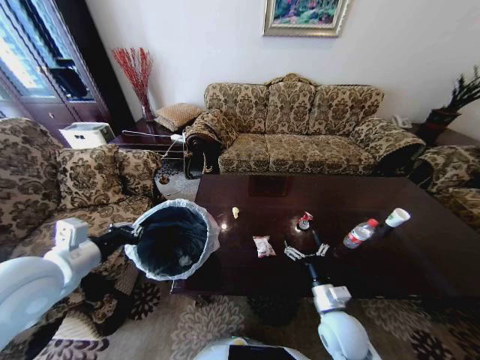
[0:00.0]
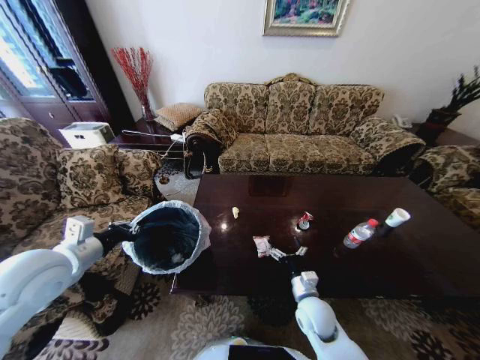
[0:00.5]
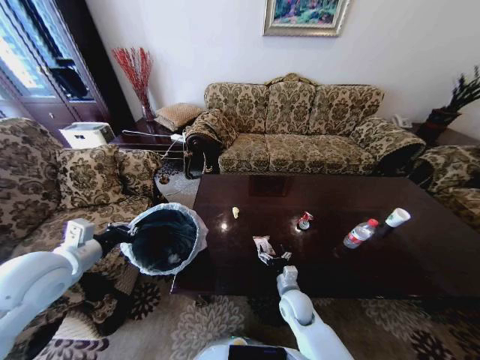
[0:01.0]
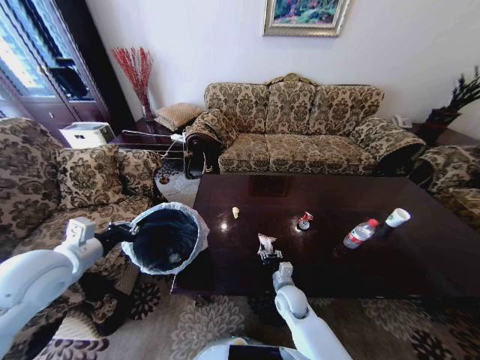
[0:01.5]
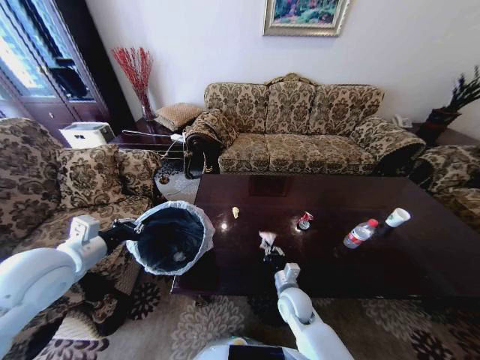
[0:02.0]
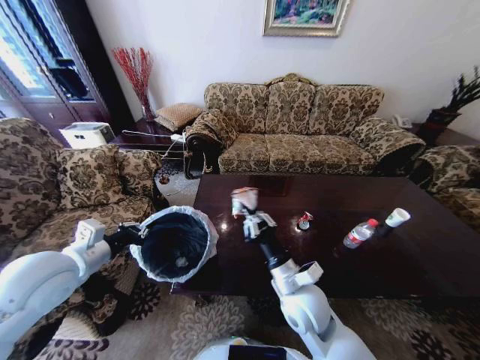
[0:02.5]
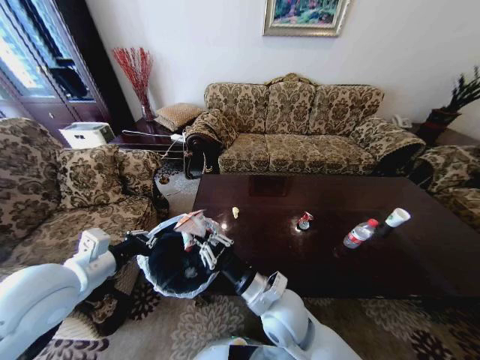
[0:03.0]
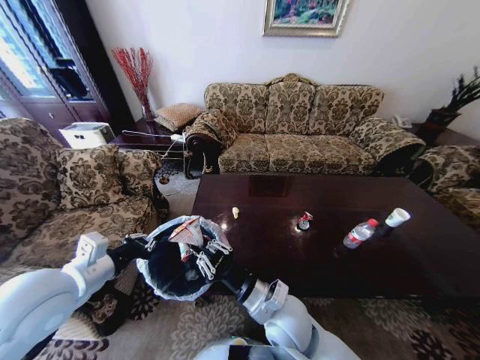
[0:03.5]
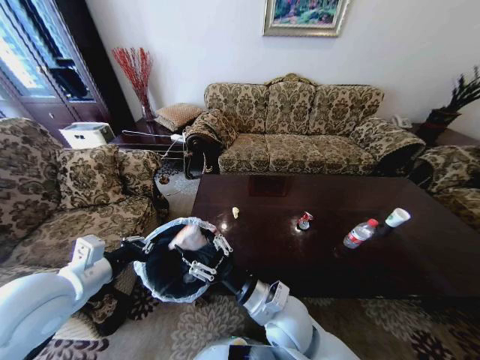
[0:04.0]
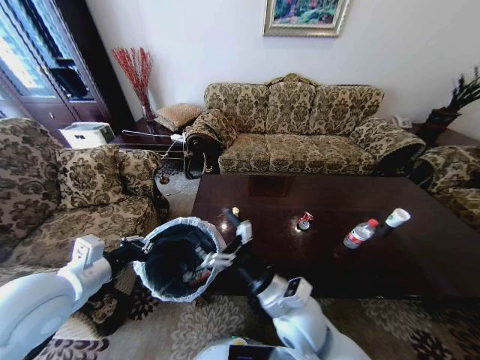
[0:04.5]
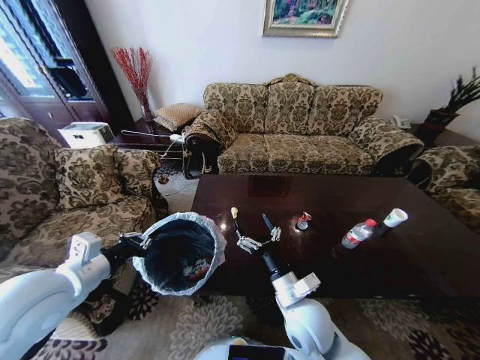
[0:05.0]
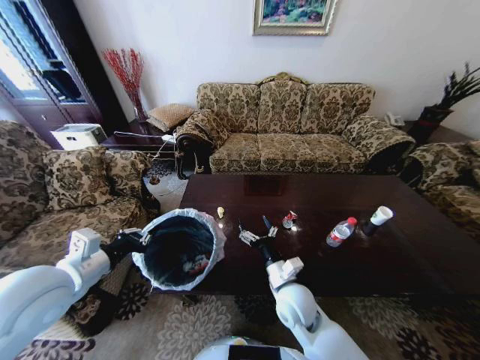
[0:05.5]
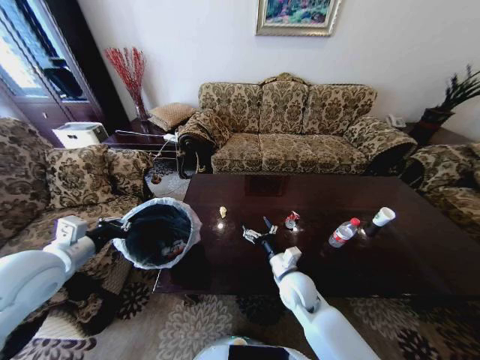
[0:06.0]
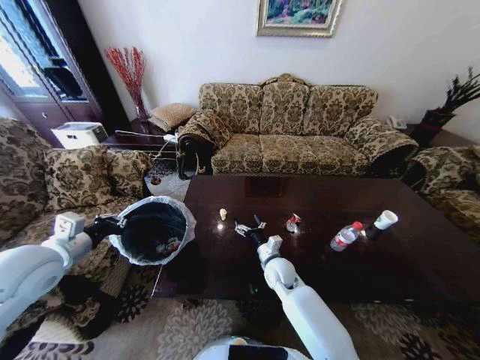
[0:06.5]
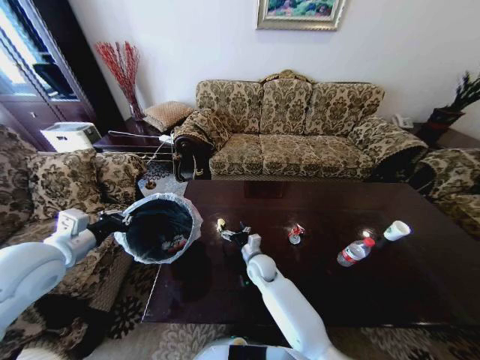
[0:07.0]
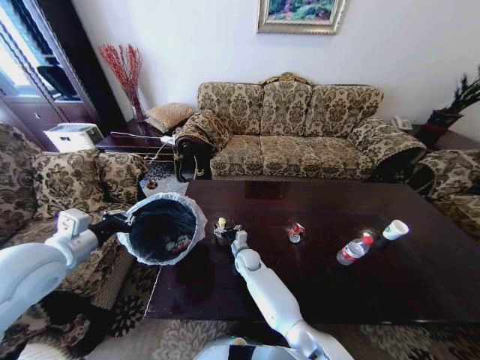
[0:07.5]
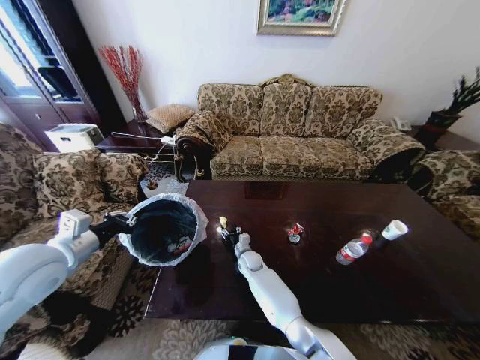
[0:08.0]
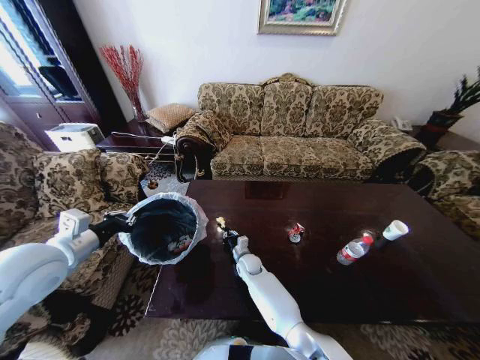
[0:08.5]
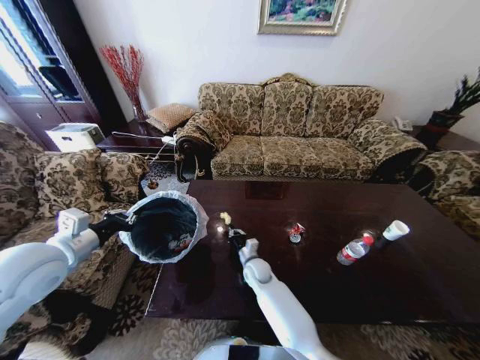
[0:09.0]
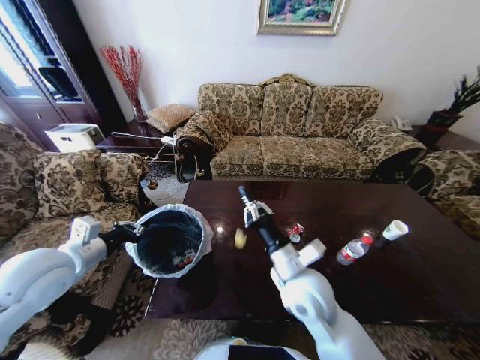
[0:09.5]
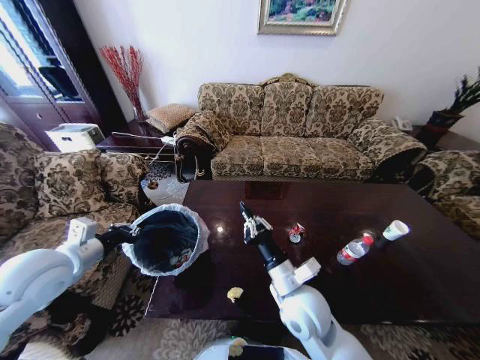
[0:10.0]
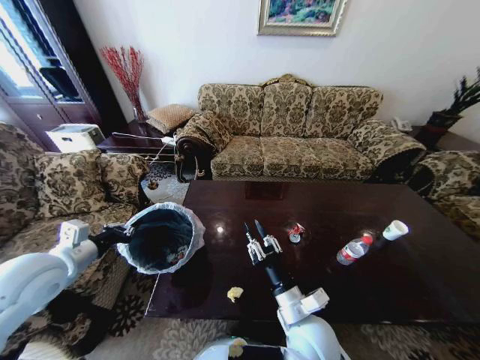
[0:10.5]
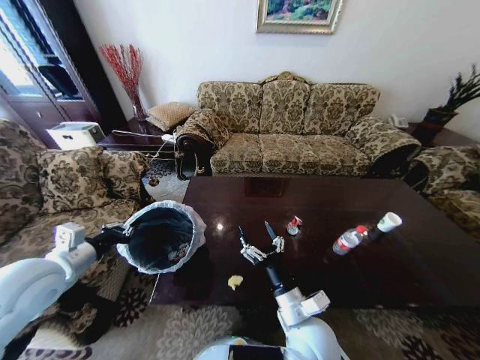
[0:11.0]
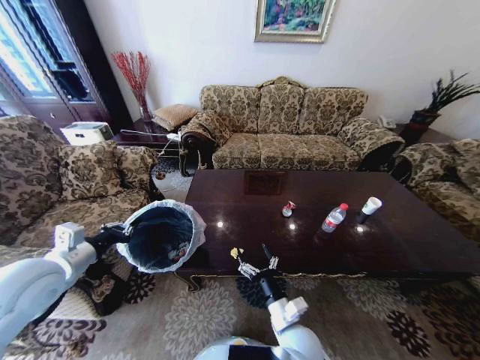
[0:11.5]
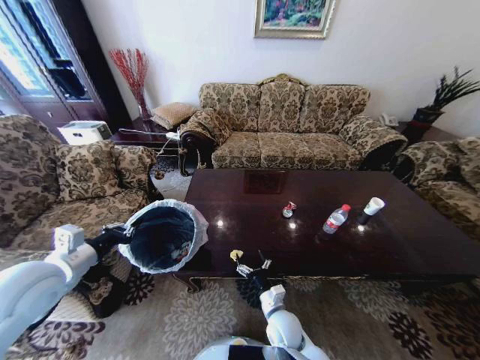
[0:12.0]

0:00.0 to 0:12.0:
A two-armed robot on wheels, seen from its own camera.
Task of the whole recording: Move to the front of the table and place the trash on the table into the trash bin.
0:00.0 to 0:02.0: The right gripper shifts roughly 15 cm downward, to the left and forward, and closes its fingers.
0:02.0 to 0:04.0: The right gripper moves upward, to the left and backward, approximately 20 cm, and opens up. Meanwhile the left gripper ends up about 5 cm from where it was.
0:04.0 to 0:06.0: The right gripper heads forward, downward and to the right, covering about 15 cm, and opens up, while the left gripper is displaced to the left by about 5 cm.
0:06.0 to 0:08.0: The right gripper is displaced downward, forward and to the left by some 25 cm.
0:08.0 to 0:10.0: The right gripper heads upward, backward and to the right, covering approximately 30 cm, and closes its fingers.
0:10.0 to 0:12.0: The right gripper is displaced downward by roughly 20 cm, and opens its fingers.

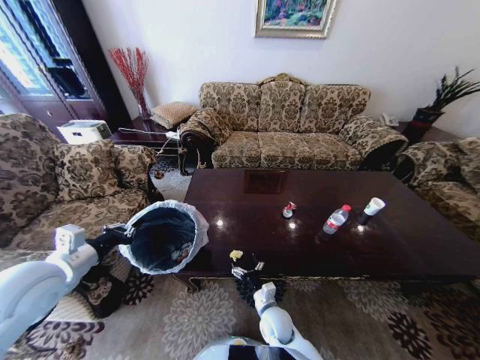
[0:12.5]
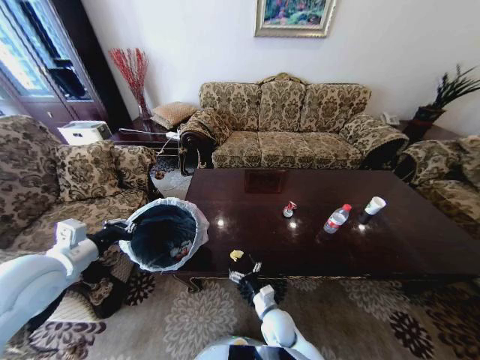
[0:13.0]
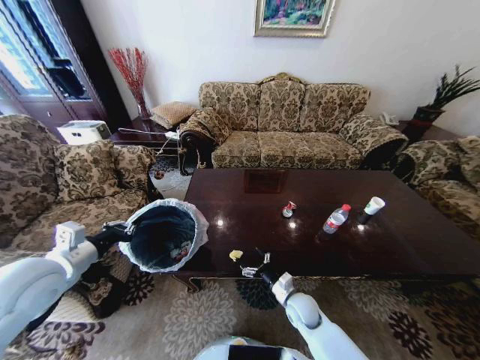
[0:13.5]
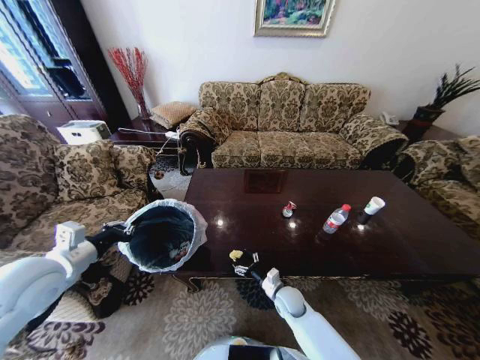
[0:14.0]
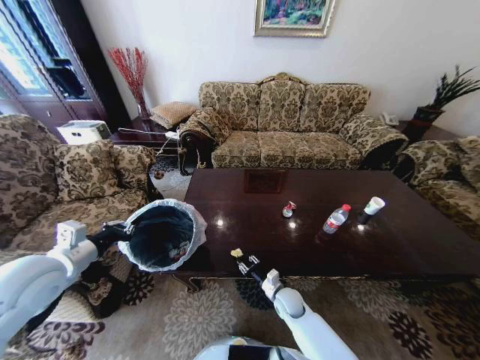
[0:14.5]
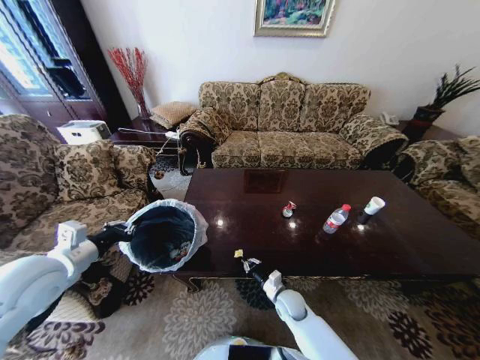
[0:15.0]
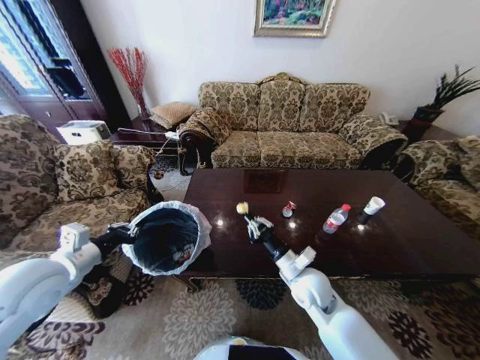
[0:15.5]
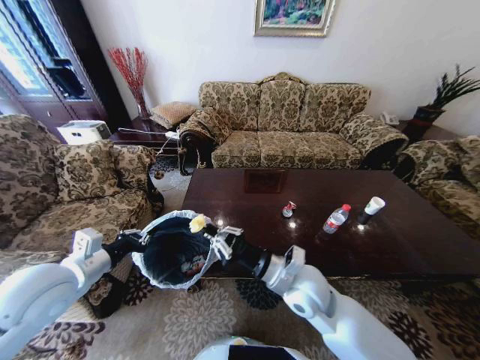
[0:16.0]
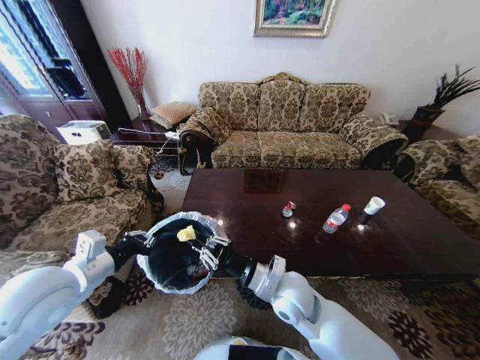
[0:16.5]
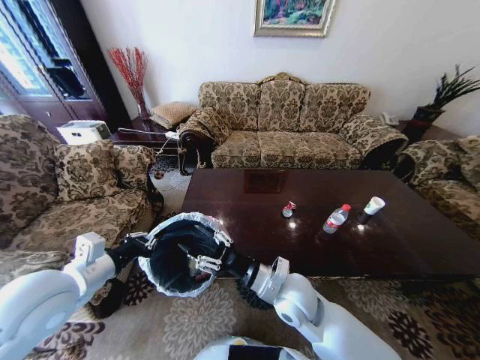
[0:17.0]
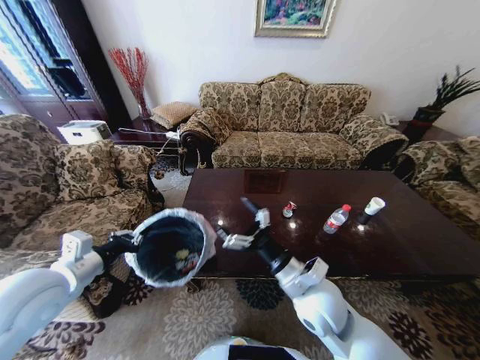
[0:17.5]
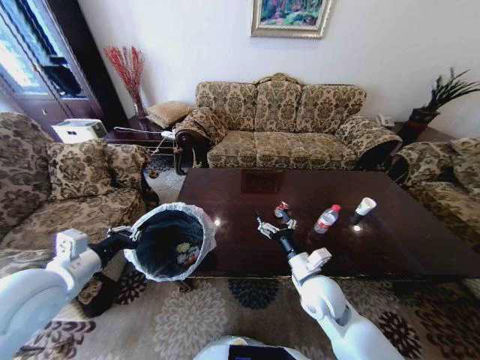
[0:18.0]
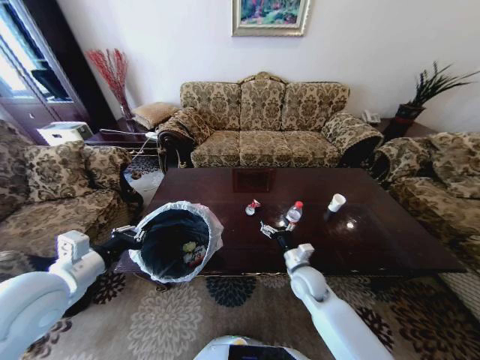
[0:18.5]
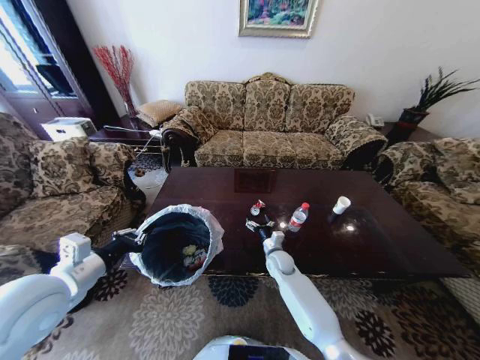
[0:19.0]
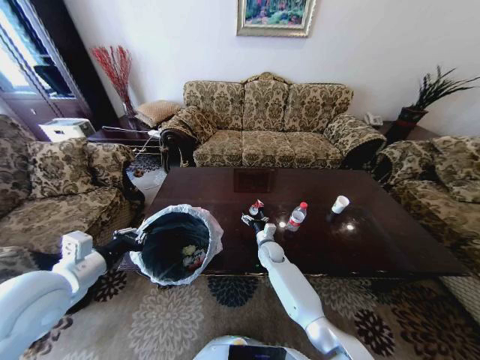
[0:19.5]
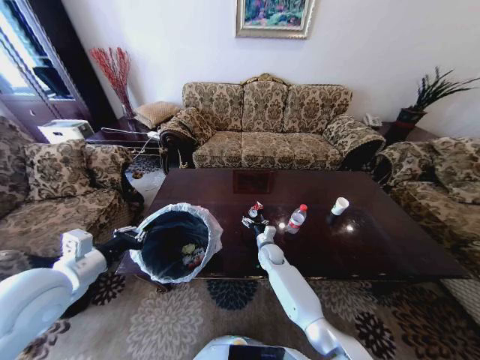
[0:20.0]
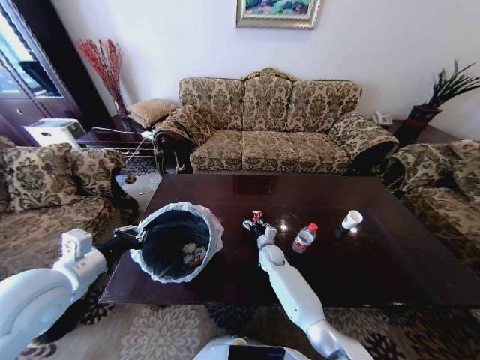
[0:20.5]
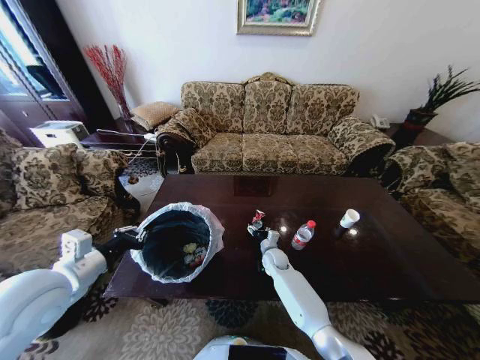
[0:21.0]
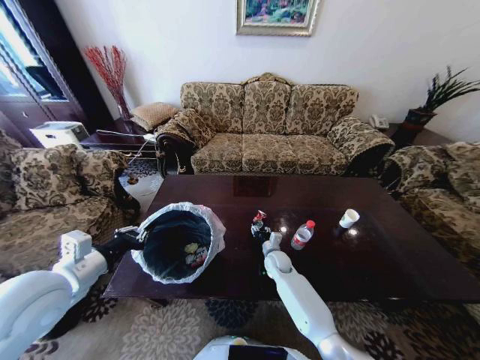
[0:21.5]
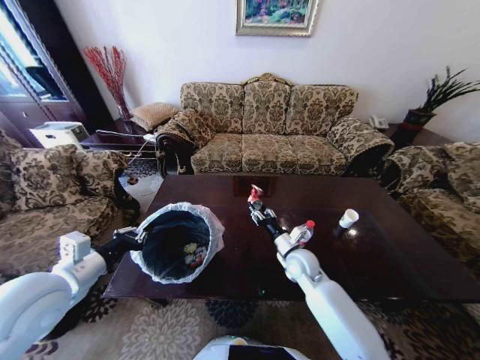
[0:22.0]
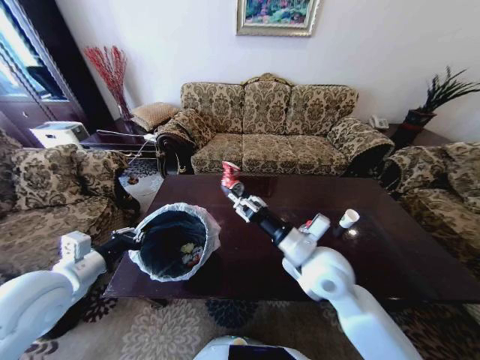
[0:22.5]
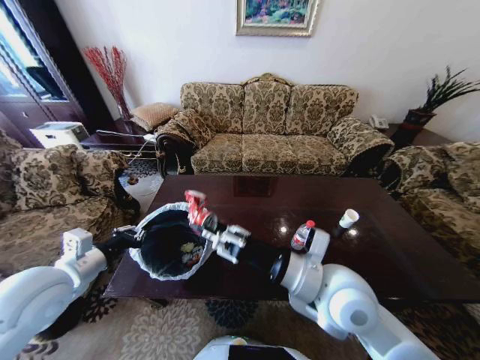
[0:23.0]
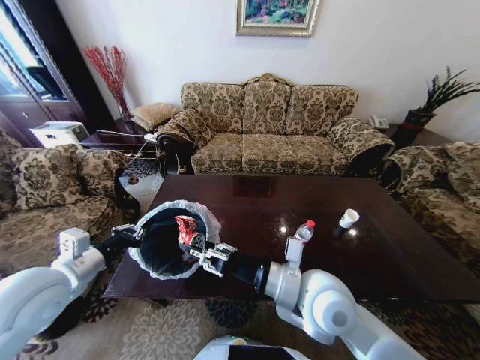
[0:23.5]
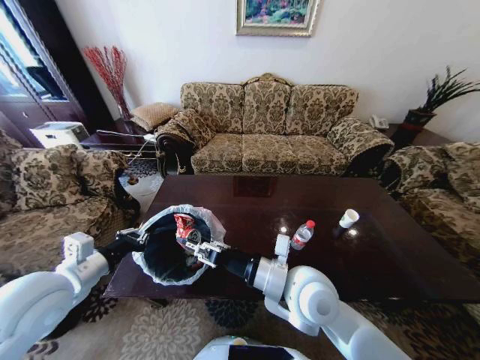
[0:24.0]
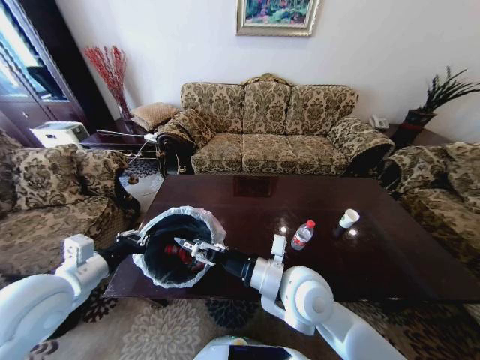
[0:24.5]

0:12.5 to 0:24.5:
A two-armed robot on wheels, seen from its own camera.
Task of the whole recording: Move to the front of the table and place the trash on the table into the trash bin.
0:12.5 to 0:14.5: The right gripper travels forward and to the right by some 10 cm, and closes its fingers.
0:14.5 to 0:16.5: The right gripper goes some 25 cm upward. Meanwhile the left gripper travels to the right by about 5 cm.
0:16.5 to 0:18.5: The right gripper travels downward, to the right and forward by some 15 cm, and opens its fingers.
0:18.5 to 0:20.5: The right gripper goes about 20 cm forward, downward and to the left.
0:20.5 to 0:22.5: The right gripper shifts some 35 cm upward and backward, and closes its fingers.
0:22.5 to 0:24.5: The right gripper travels to the left by roughly 5 cm, and opens up.

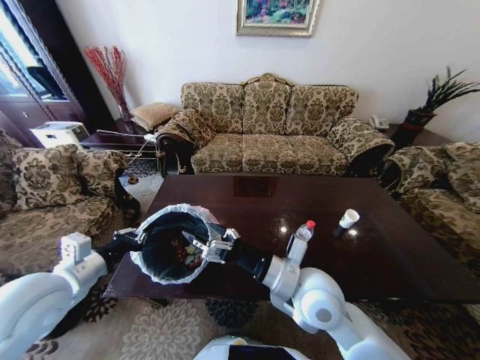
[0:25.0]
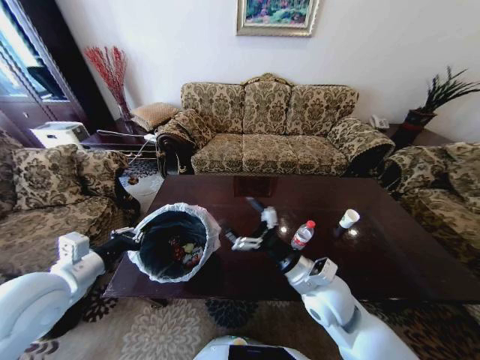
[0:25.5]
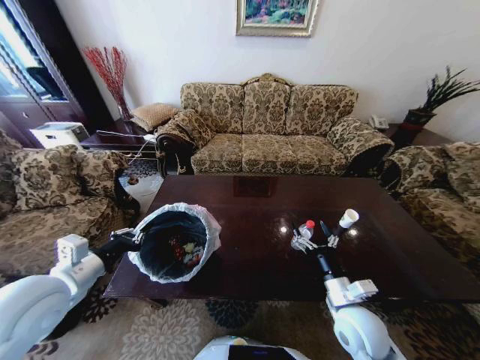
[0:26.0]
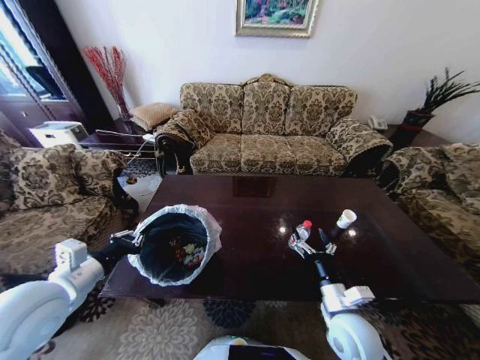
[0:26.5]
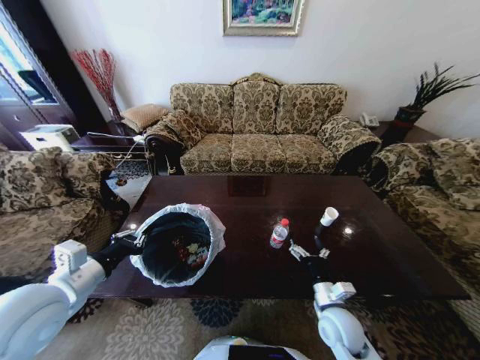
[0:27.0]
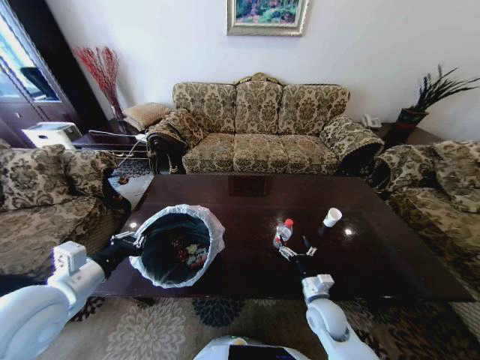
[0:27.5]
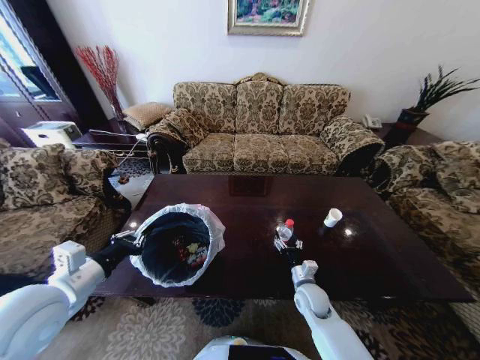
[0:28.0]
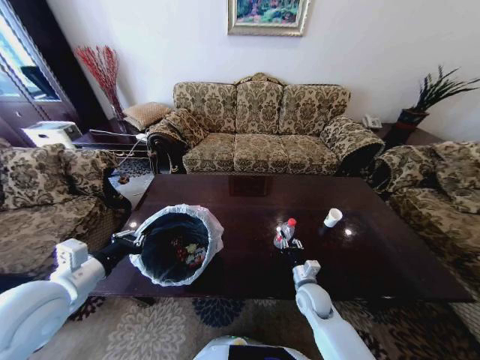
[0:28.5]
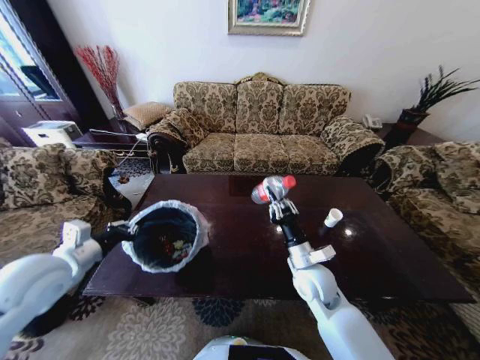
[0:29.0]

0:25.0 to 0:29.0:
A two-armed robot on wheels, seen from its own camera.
Task of the whole recording: Move to the front of the table and place the trash on the table into the trash bin.
0:25.0 to 0:27.0: The right gripper goes about 20 cm downward and to the right.
0:27.0 to 0:29.0: The left gripper is displaced forward by roughly 5 cm. Meanwhile the right gripper shifts approximately 15 cm forward, upward and to the left, and closes.